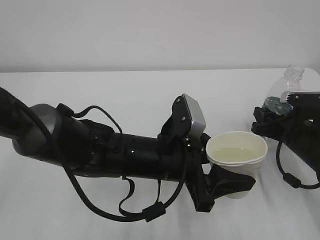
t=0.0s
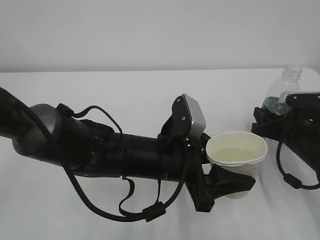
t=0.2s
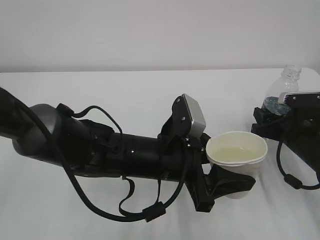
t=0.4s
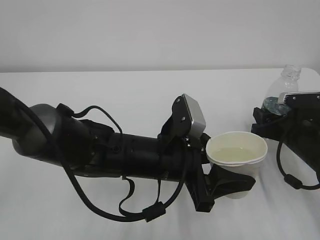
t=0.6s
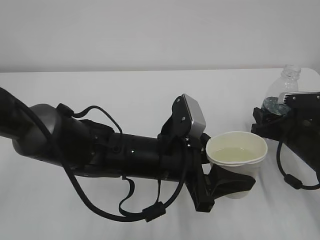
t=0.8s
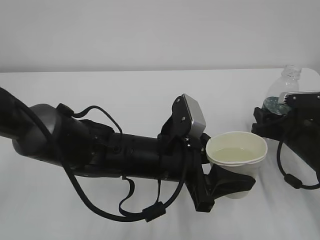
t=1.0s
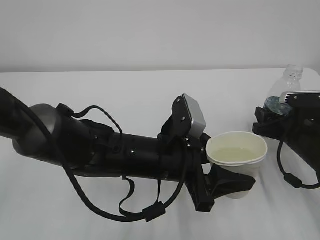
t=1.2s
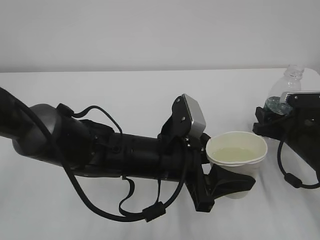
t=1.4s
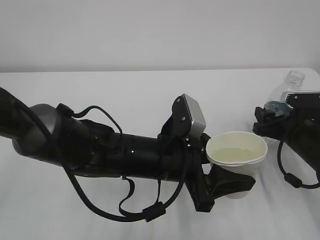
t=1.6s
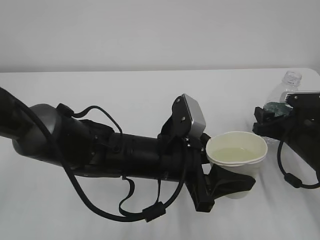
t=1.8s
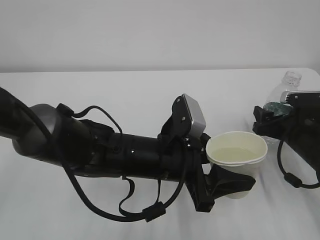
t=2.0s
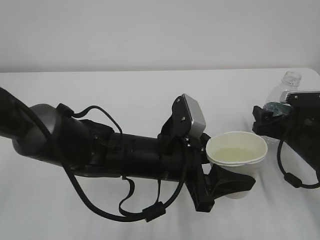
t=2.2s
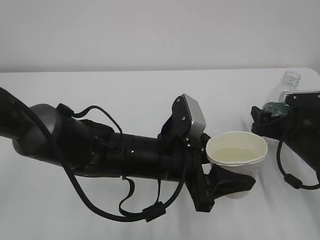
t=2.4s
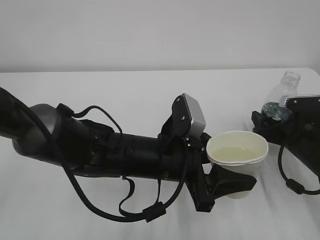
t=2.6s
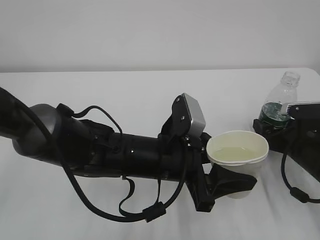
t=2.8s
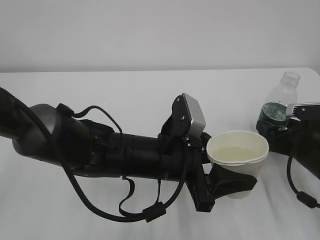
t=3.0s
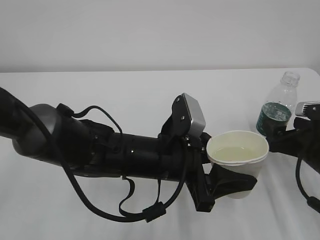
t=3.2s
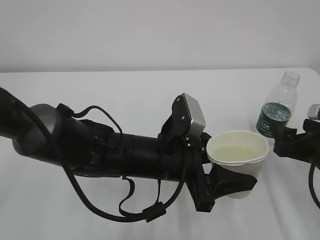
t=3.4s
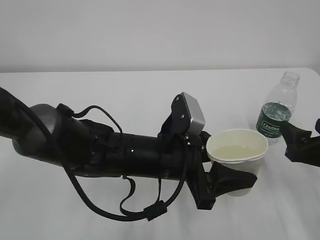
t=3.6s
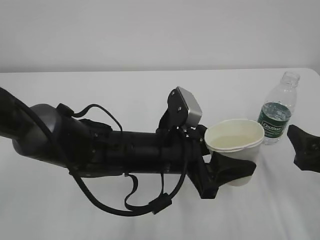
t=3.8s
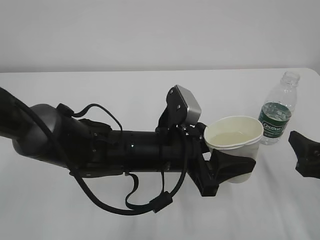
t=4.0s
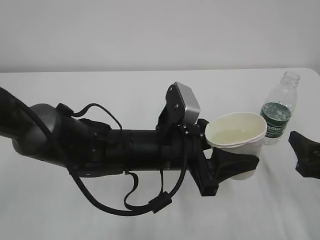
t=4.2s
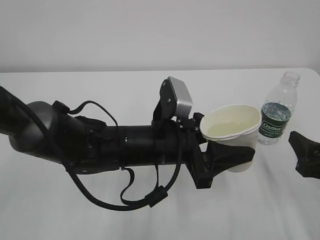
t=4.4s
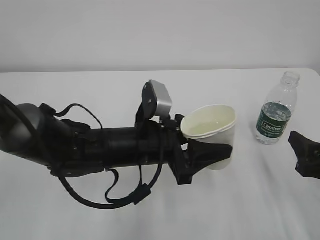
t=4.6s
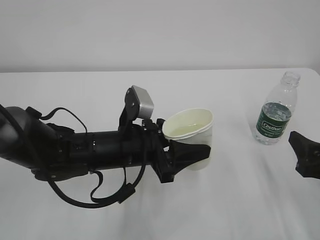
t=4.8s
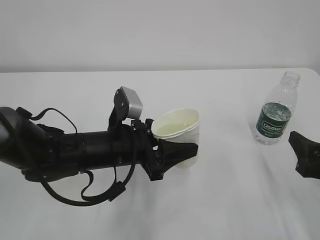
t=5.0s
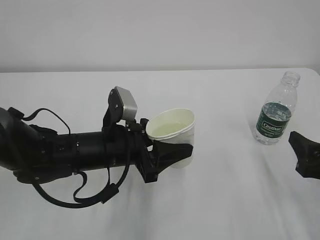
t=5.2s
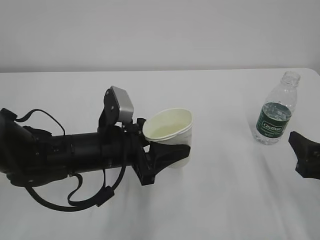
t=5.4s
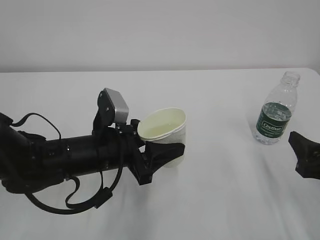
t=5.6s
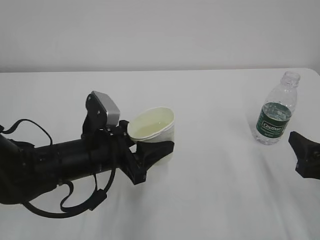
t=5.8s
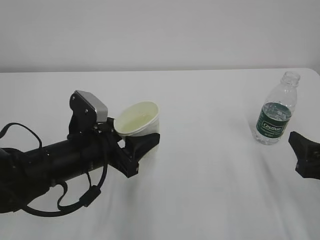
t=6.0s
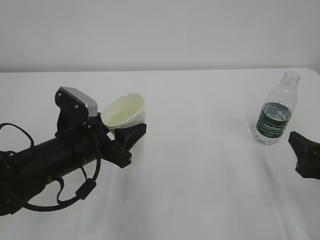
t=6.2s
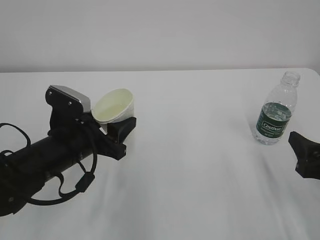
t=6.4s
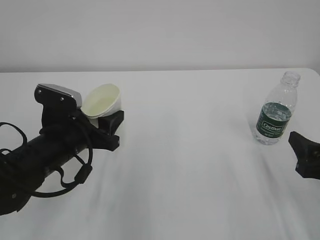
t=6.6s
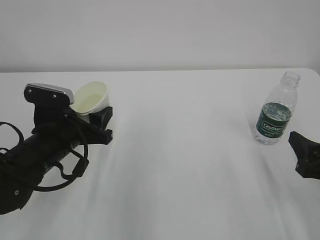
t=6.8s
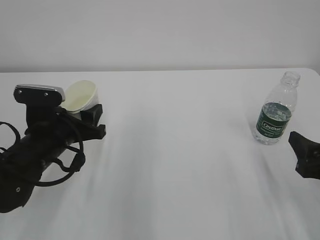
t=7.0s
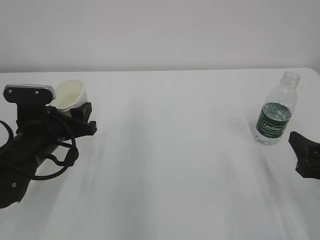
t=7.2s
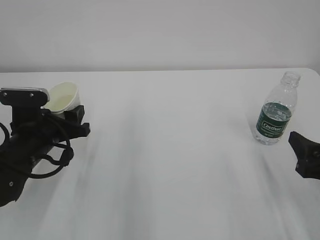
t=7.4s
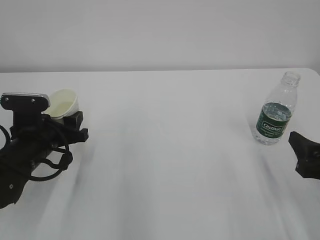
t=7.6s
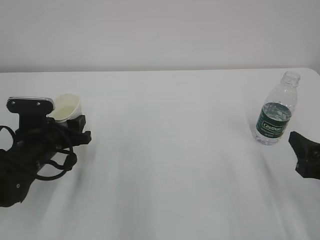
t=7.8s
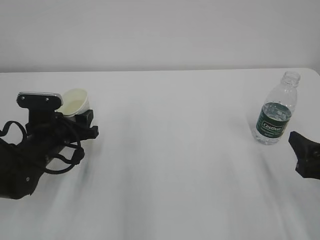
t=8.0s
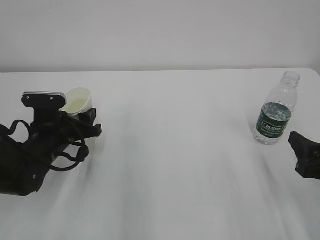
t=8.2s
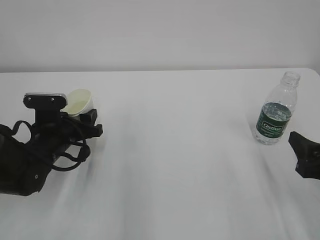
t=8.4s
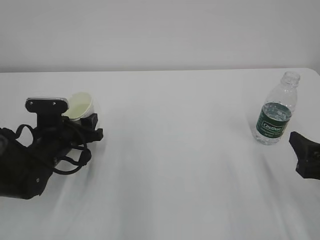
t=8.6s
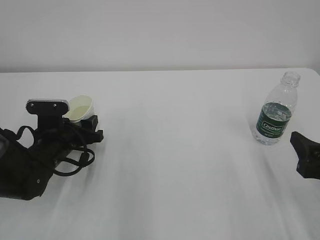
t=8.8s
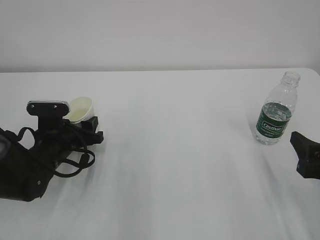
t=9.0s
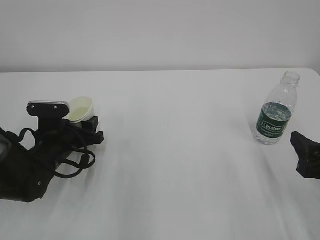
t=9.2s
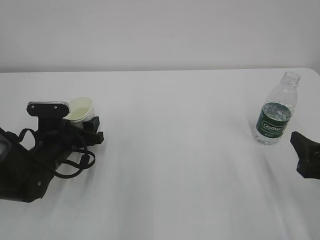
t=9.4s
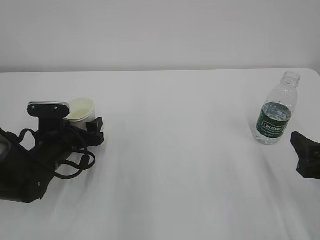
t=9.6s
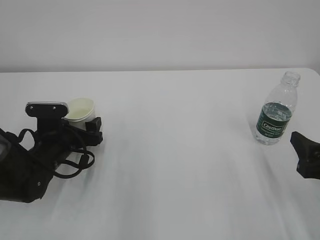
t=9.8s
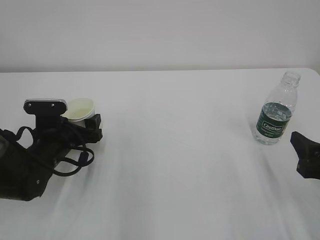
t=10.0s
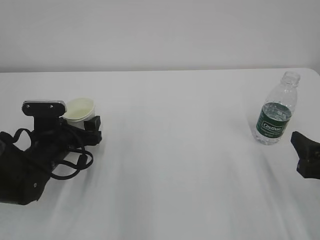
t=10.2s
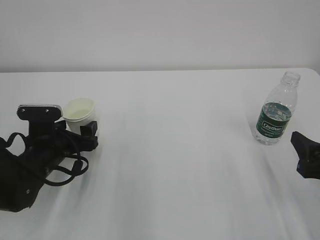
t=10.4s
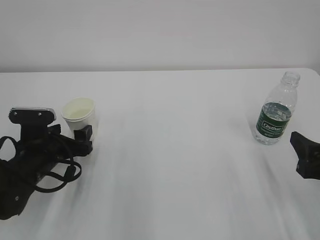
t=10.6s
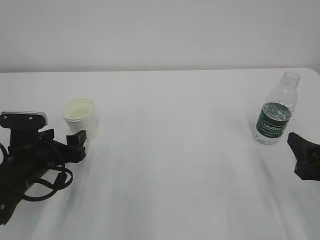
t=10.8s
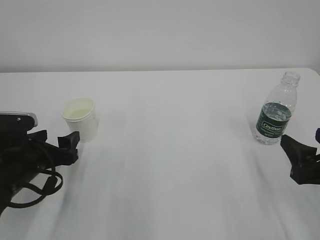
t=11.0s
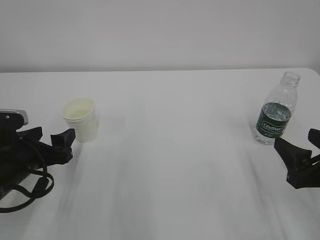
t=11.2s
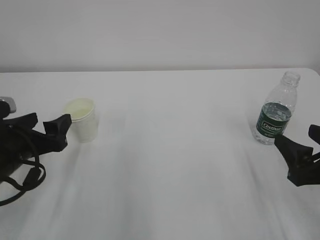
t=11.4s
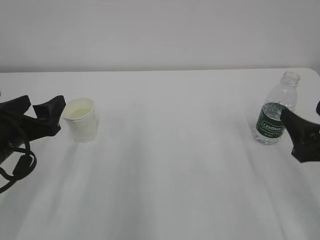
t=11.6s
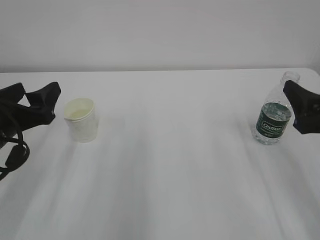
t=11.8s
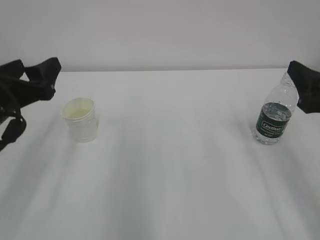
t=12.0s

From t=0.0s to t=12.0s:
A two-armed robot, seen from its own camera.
From t=0.0s to t=1.6s: The two grippers keep their place.
From t=1.6s to t=3.0s: The right gripper opens.
From t=3.0s to t=4.4s: The right gripper heads backward and upward, covering approximately 10 cm.
From t=4.4s to t=6.0s: The left gripper shifts approximately 10 cm to the left.
From t=6.0s to t=7.6s: The left gripper shifts approximately 10 cm to the left.
From t=7.6s to t=9.0s: The left gripper moves approximately 5 cm.
From t=9.0s to t=10.4s: The left gripper opens.
From t=10.4s to t=12.0s: The right gripper is displaced upward by about 10 cm. Meanwhile the left gripper shifts about 15 cm upward.

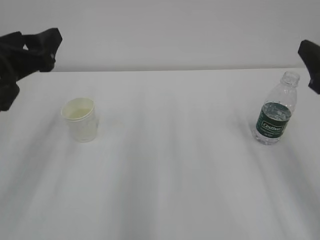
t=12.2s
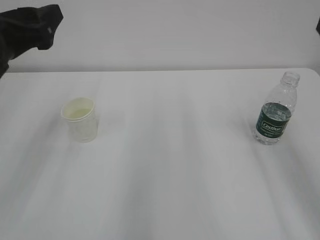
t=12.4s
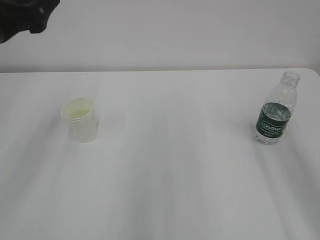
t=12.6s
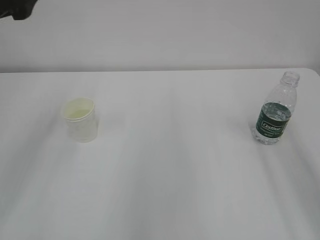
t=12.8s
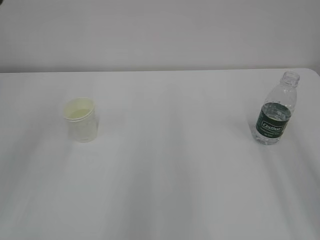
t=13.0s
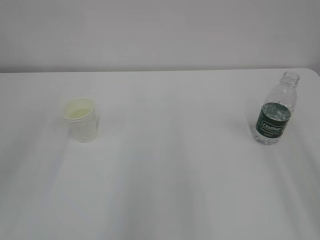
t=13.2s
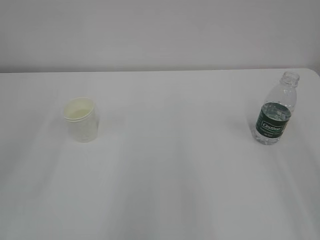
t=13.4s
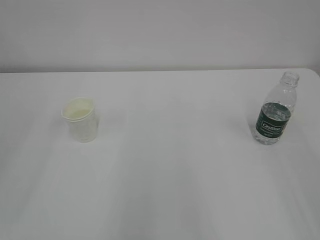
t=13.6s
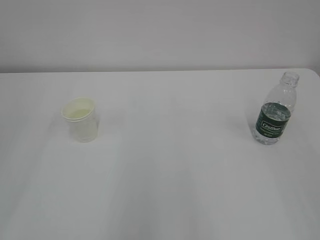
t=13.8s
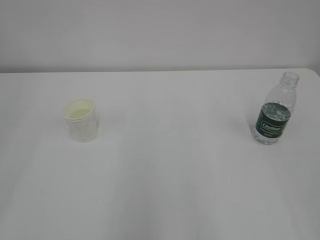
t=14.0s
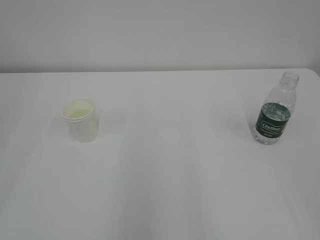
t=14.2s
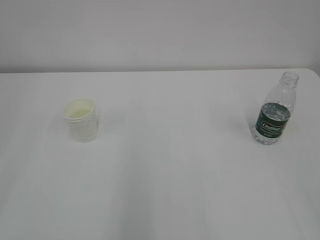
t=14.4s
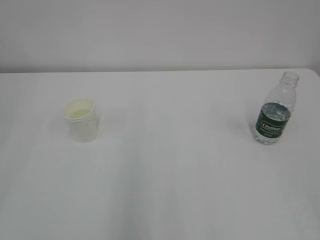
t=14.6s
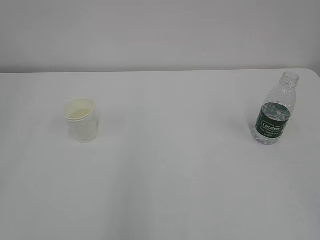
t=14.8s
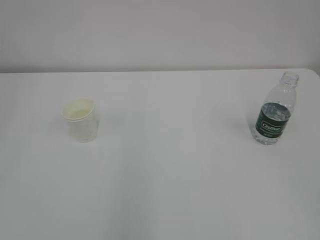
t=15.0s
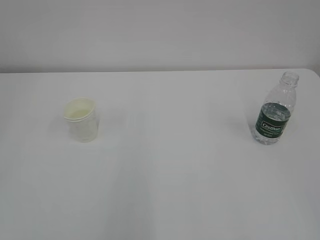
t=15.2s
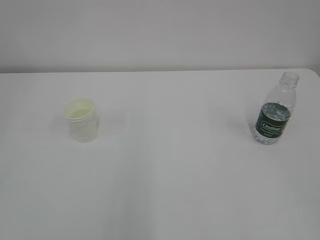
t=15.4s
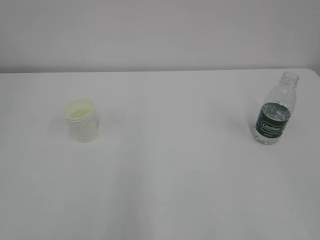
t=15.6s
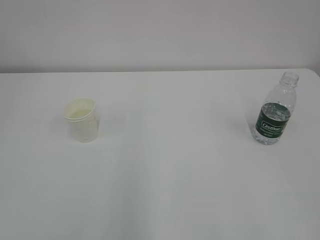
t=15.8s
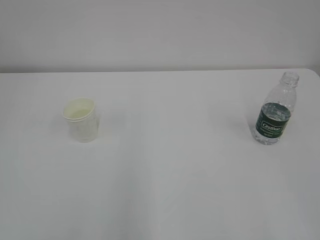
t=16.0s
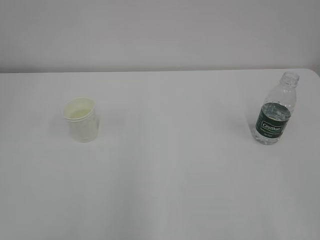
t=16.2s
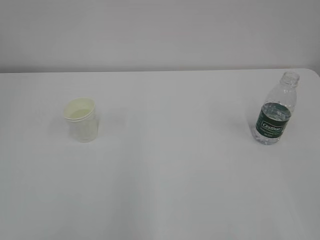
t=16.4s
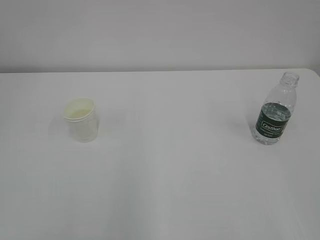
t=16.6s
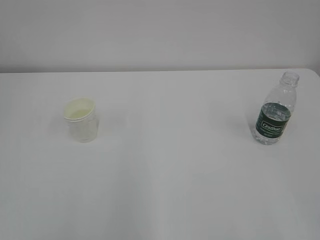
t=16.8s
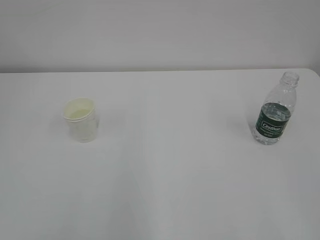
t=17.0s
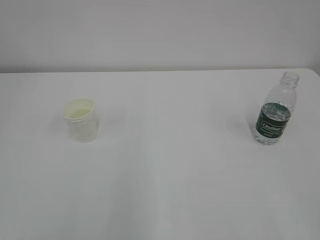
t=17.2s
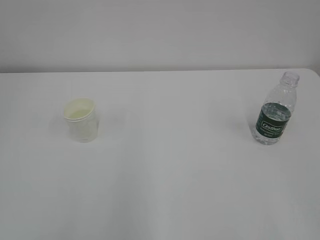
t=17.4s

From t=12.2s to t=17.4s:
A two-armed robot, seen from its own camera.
From t=12.2s to t=14.0s: The right gripper is displaced backward and upward by approximately 25 cm. Meanwhile the left gripper heads backward, upward and to the left, covering approximately 25 cm.
